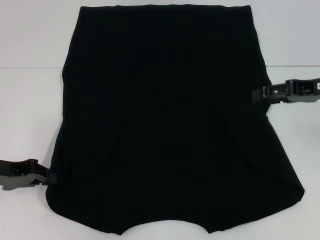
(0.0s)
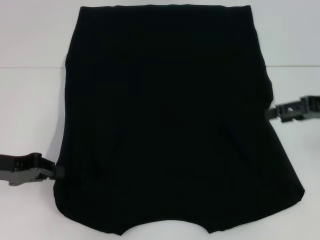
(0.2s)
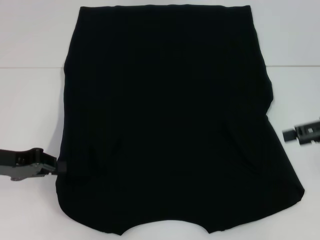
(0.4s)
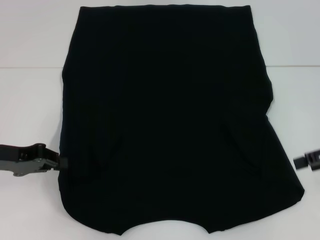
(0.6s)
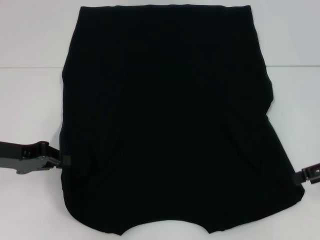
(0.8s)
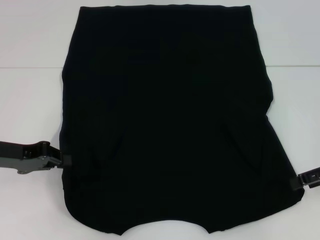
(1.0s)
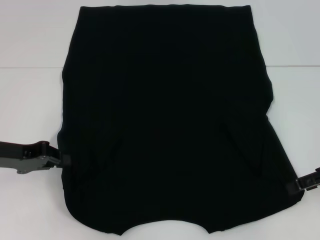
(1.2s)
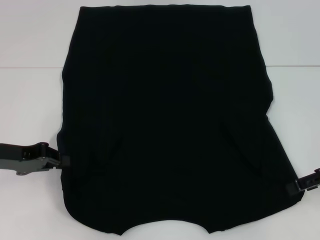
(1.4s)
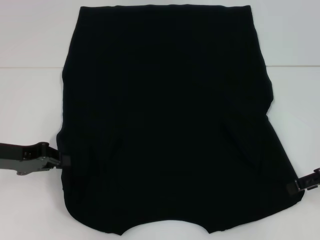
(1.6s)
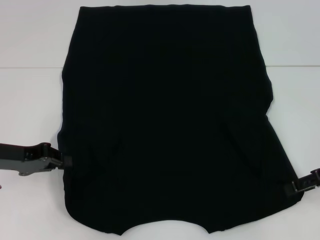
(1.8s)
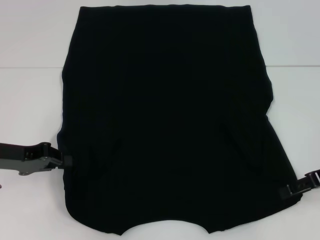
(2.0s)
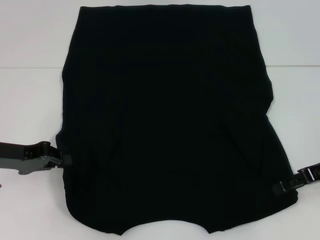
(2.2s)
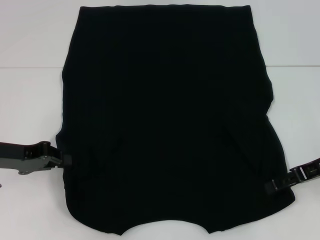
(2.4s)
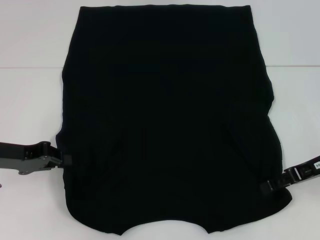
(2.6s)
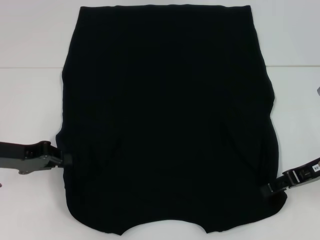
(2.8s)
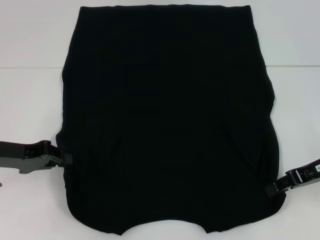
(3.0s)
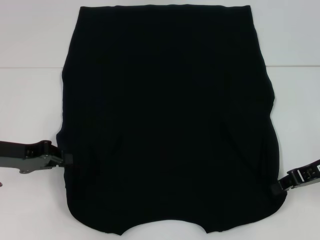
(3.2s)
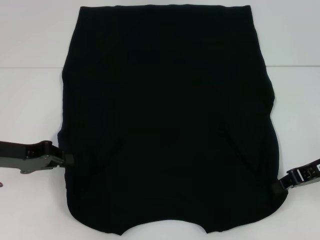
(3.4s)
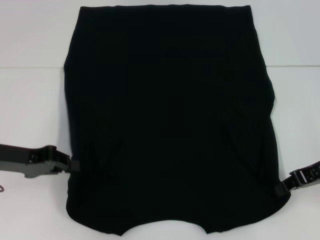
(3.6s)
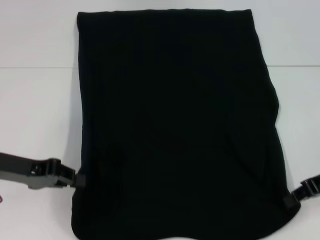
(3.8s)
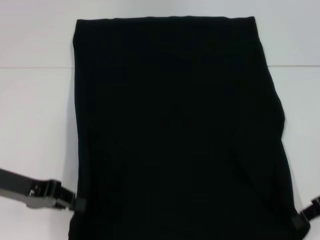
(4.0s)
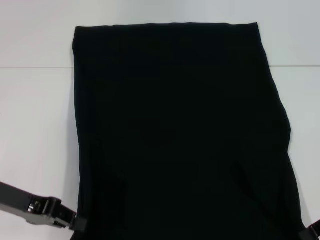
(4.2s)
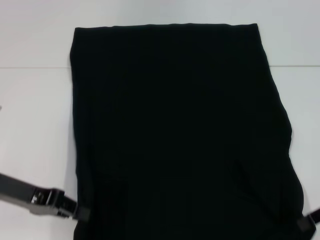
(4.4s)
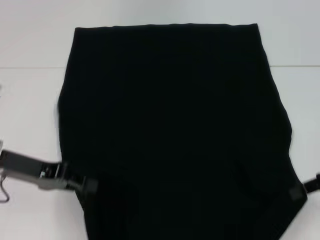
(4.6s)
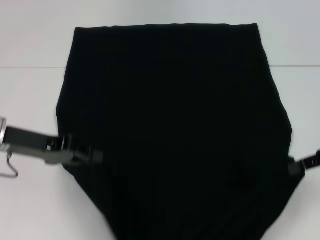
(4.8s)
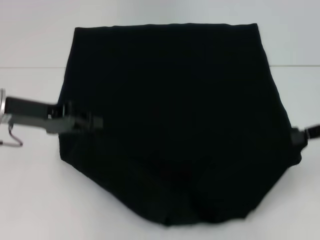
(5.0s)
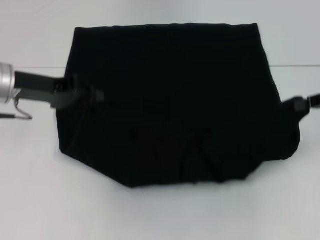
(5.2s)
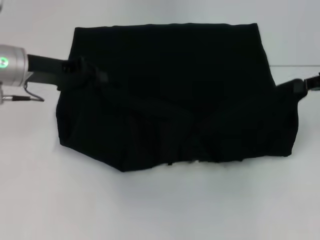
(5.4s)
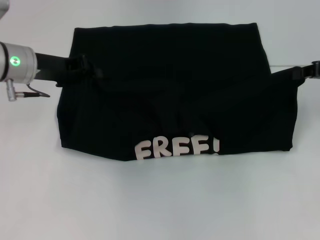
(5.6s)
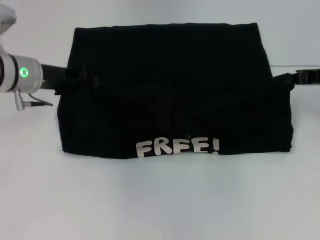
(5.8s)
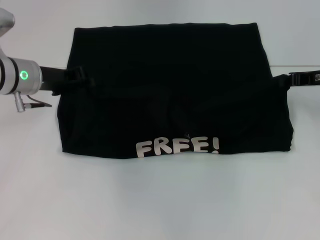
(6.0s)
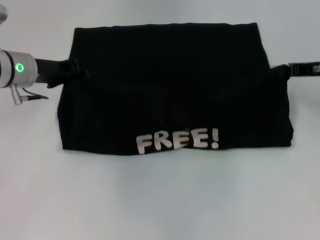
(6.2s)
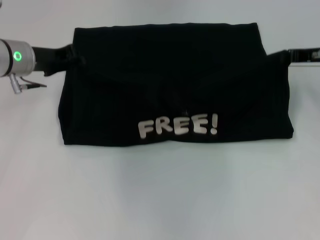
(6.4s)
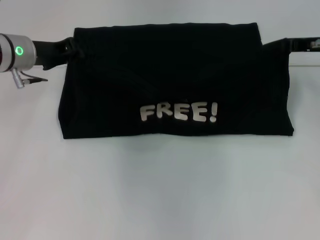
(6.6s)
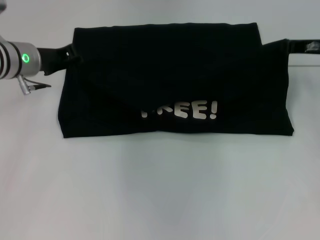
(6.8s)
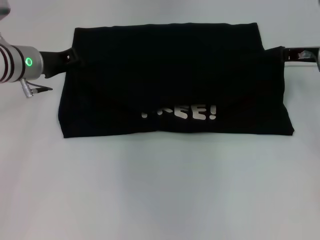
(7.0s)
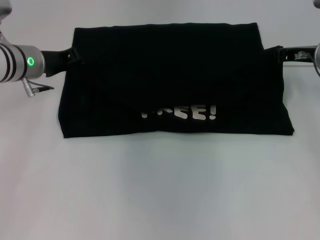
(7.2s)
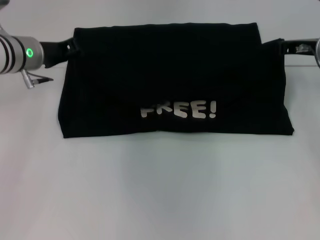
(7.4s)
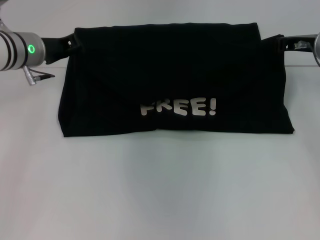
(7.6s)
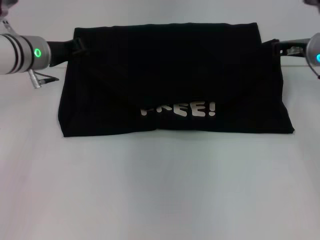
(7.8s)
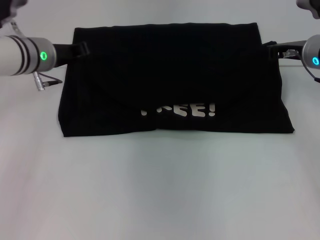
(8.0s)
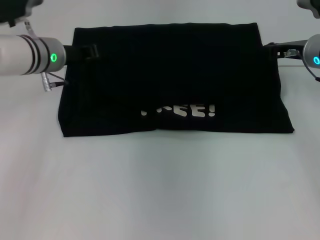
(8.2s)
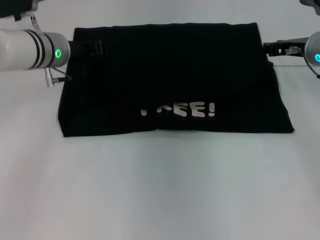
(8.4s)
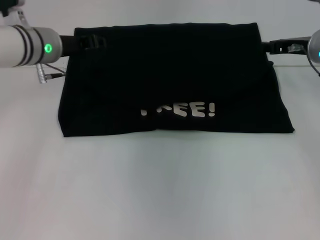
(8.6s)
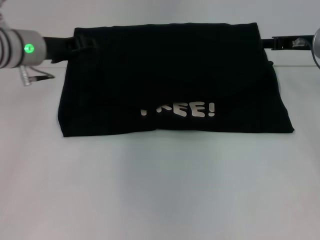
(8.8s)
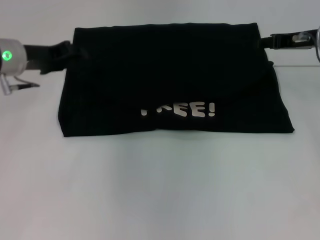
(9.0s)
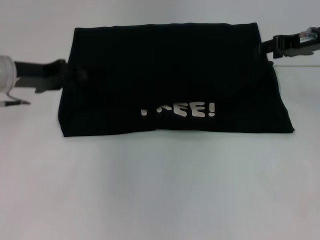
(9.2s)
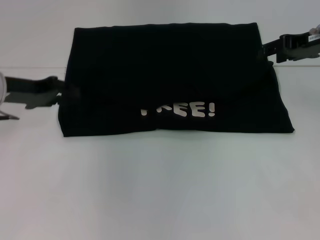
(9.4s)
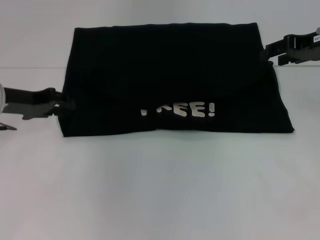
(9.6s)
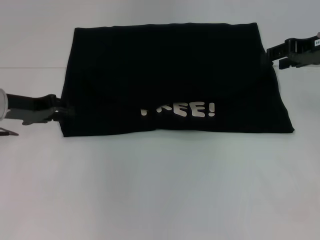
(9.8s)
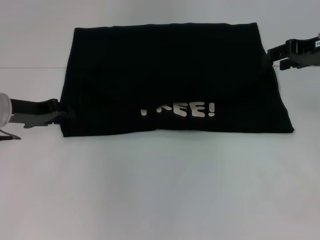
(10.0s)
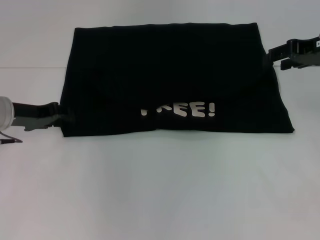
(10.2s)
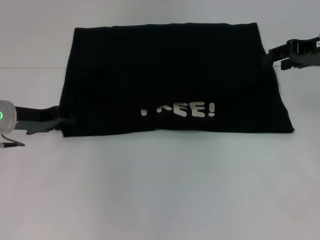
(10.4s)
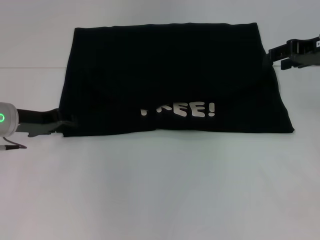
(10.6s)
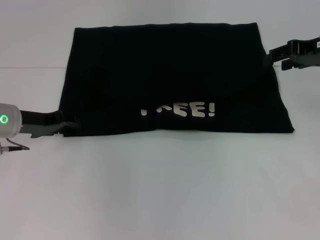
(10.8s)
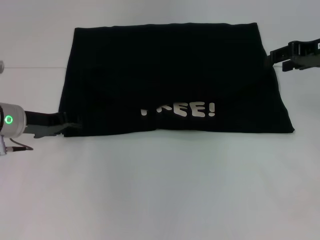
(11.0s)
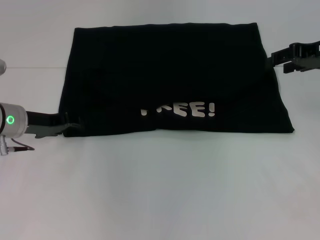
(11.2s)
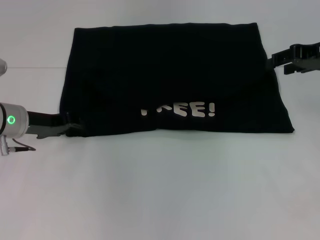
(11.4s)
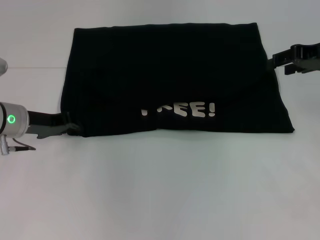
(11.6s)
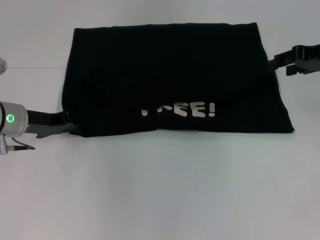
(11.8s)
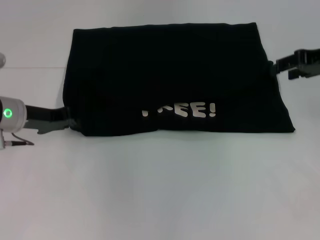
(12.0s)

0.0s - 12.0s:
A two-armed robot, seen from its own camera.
Step, 0.2s - 3.4s: Grab the top right corner with your right hand.
Step, 3.6s - 8.4s: Fold the clothes with your left hand.
Step, 3.6s - 8.4s: Fold the clothes with your right hand.
0.0s - 1.6s: The right gripper heads backward and downward, covering roughly 10 cm.
1.6s - 3.0s: The grippers make only small movements.
3.0s - 4.4s: The right gripper changes place by about 5 cm, and closes its fingers.
4.4s - 6.0s: Both grippers move forward, roughly 15 cm.
6.0s - 7.6s: The right gripper ends up about 5 cm from where it was.
7.6s - 9.0s: The right gripper opens up.
9.0s - 10.4s: The left gripper travels downward by approximately 5 cm.
10.4s - 12.0s: The left gripper closes its fingers.

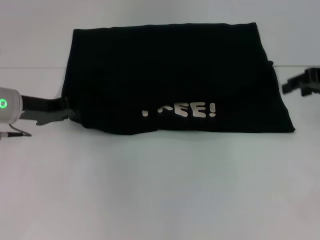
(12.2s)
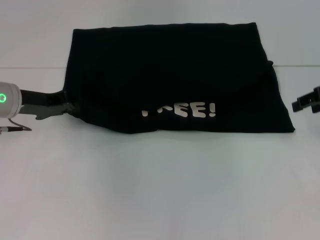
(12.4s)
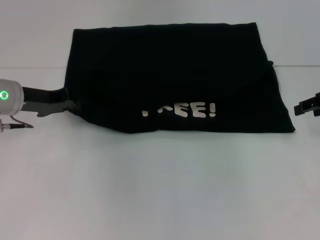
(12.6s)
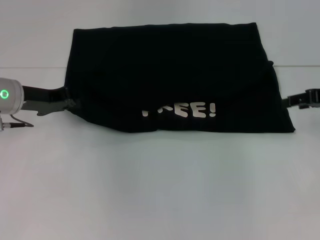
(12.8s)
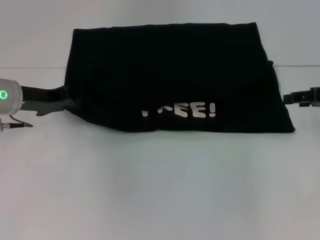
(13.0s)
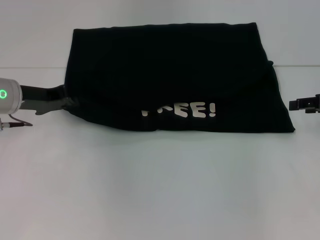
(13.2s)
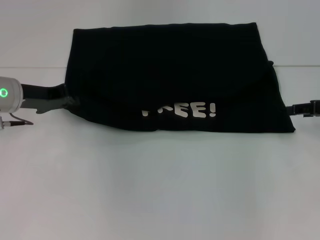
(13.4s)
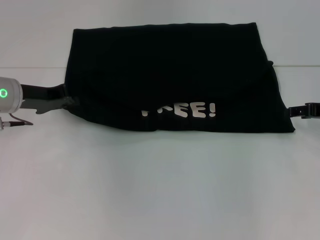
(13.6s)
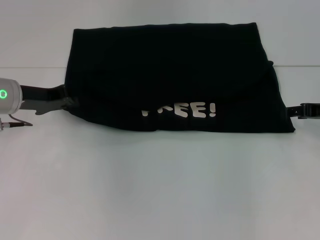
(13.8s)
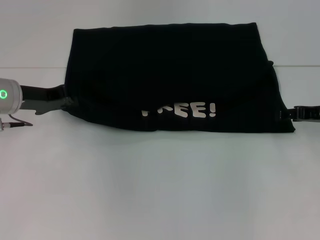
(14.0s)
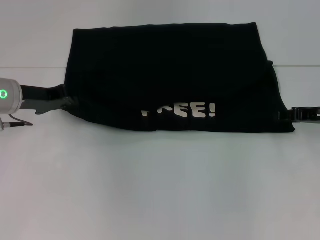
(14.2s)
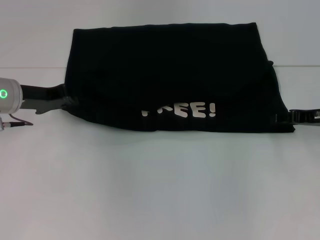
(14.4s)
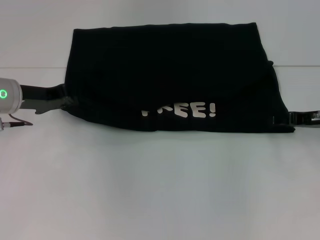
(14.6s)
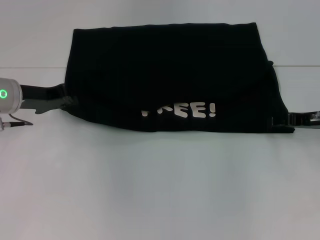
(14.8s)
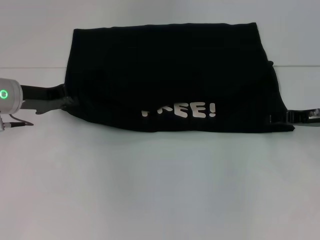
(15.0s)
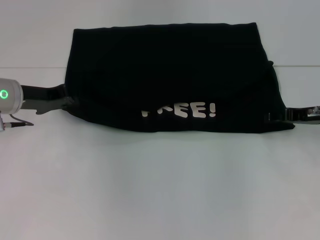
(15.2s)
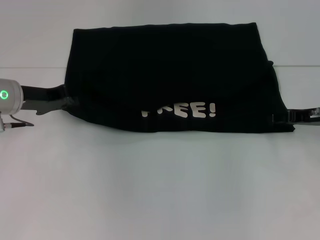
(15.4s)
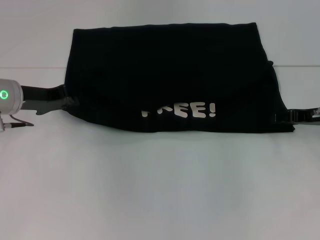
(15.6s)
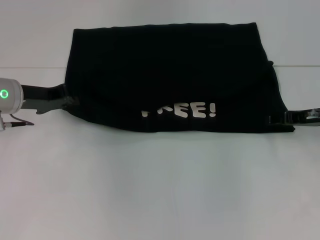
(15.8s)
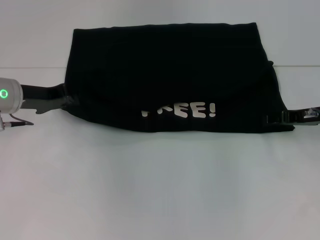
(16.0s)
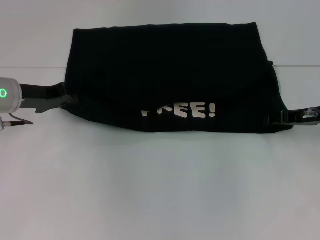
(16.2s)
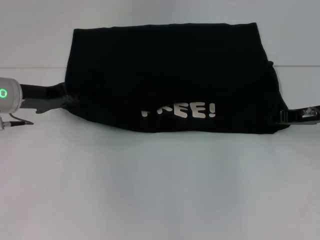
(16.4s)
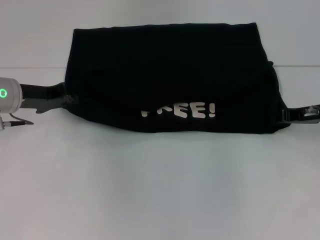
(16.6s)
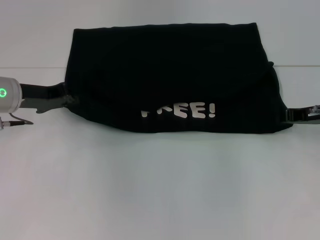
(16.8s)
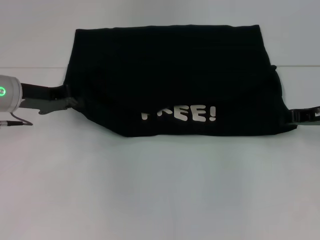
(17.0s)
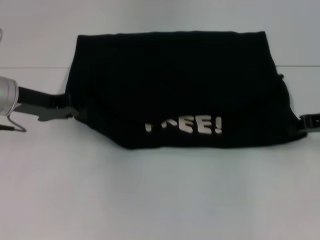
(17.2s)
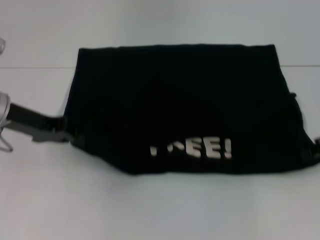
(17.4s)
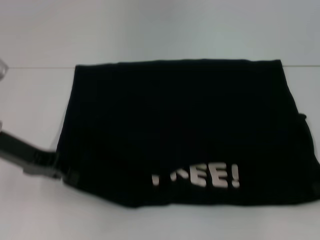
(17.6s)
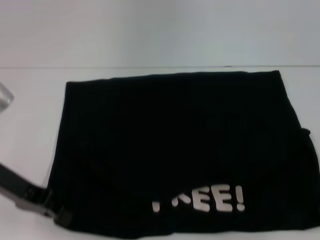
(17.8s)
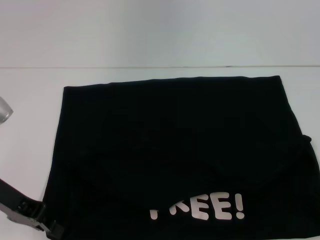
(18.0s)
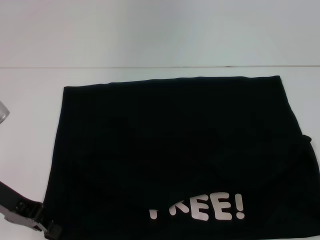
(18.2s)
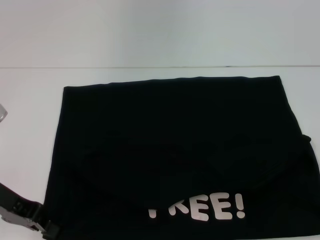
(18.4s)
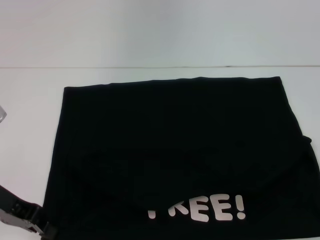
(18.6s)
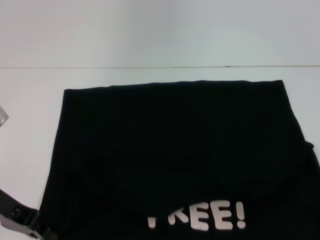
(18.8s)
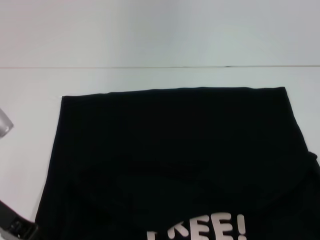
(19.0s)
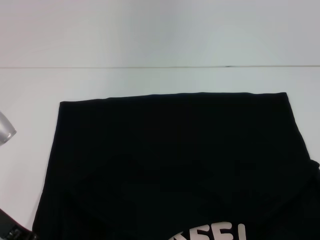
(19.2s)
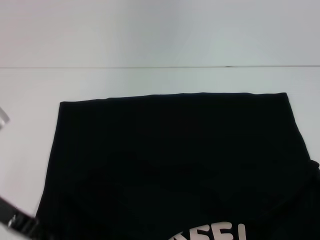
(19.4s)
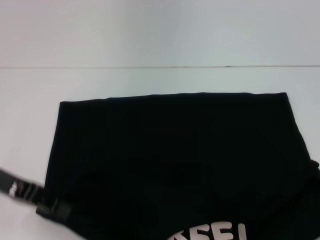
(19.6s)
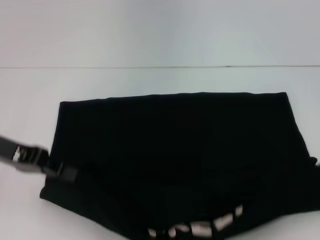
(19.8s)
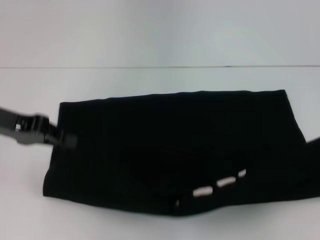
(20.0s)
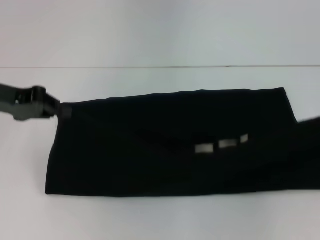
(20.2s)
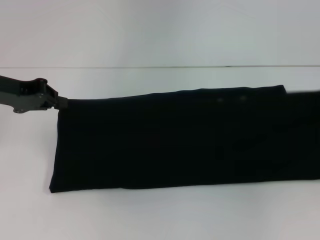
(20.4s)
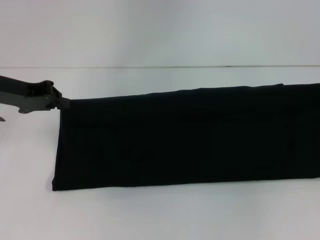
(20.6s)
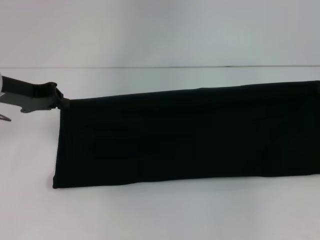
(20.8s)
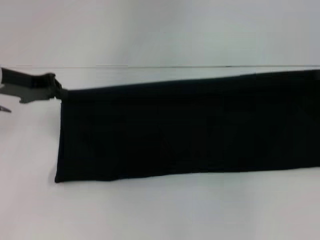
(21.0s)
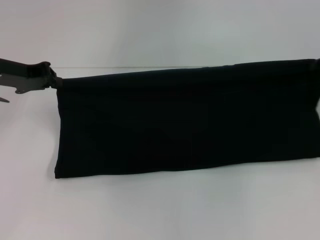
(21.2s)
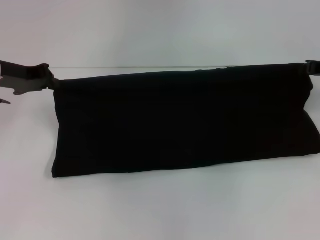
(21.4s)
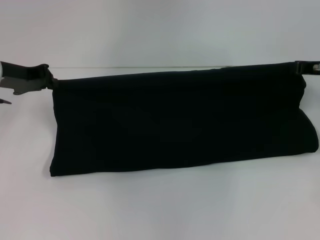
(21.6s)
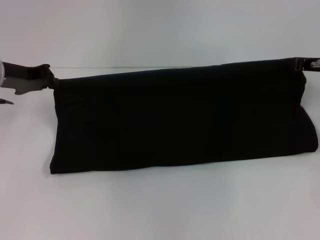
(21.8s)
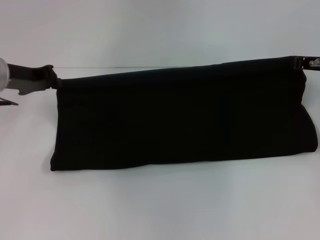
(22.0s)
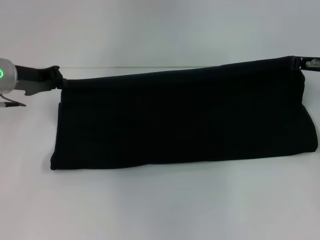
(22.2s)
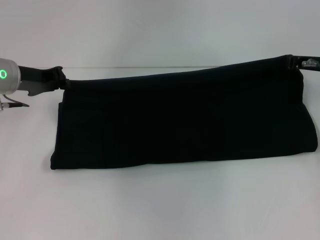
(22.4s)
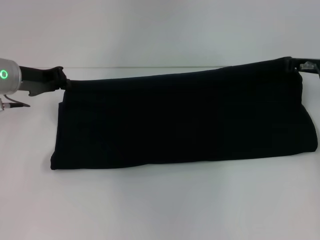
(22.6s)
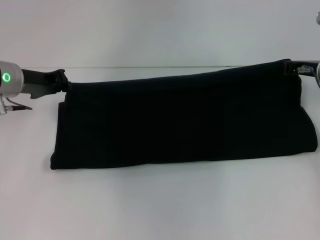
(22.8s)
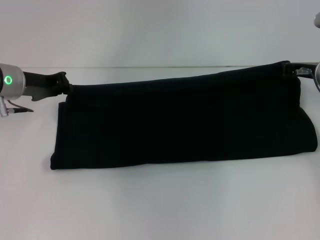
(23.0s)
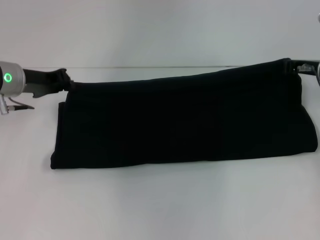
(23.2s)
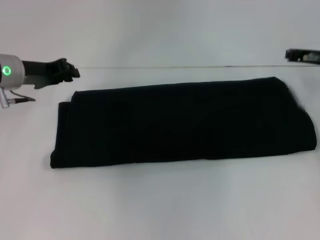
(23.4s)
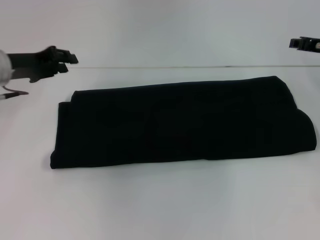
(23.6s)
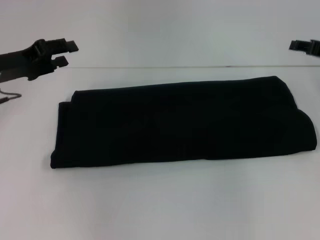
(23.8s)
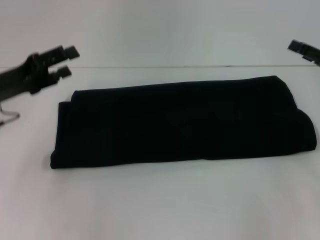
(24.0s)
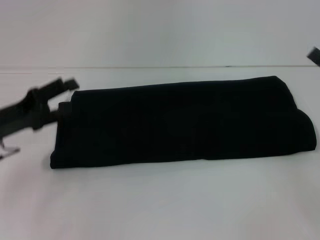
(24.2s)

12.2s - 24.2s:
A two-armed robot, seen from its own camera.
Step, 12.2s - 18.2s: Pull the clothes with your left hand.
Step, 12.2s - 18.2s: Pull the clothes with your right hand.
Step, 18.4s - 23.4s: Fold the clothes with your right hand.
12.2s - 13.8s: The right gripper is displaced downward by approximately 10 cm.
13.8s - 15.2s: The grippers stay close to where they were, moving slightly.
16.6s - 18.2s: The right gripper heads backward and to the right, covering some 10 cm; the left gripper heads backward, covering some 10 cm.
18.2s - 19.8s: The right gripper heads upward, covering approximately 5 cm. Meanwhile the left gripper shifts by some 5 cm.
19.8s - 21.2s: The two grippers go approximately 10 cm forward.
21.2s - 22.6s: The right gripper heads to the left, covering about 5 cm.
22.6s - 24.2s: Both grippers travel together backward, roughly 15 cm. The left gripper opens; the right gripper opens up.
